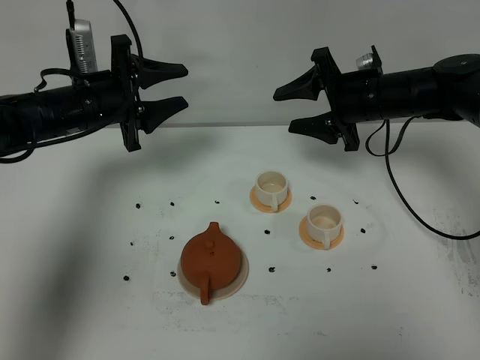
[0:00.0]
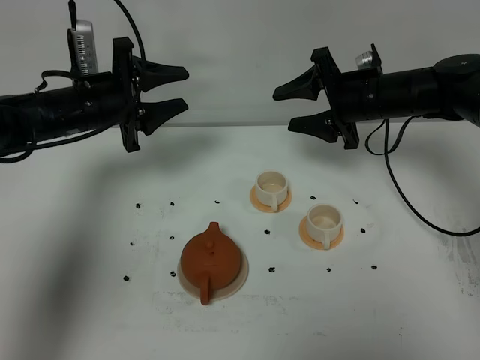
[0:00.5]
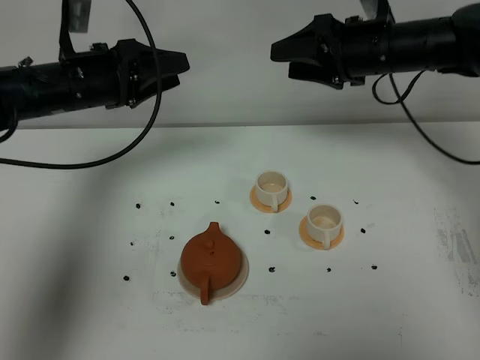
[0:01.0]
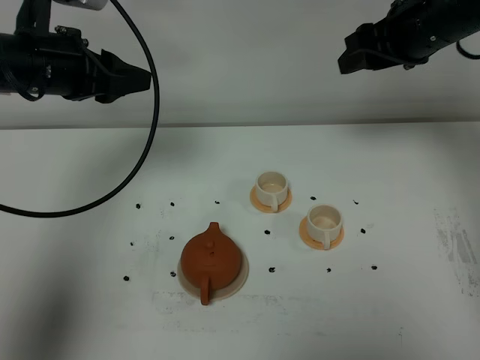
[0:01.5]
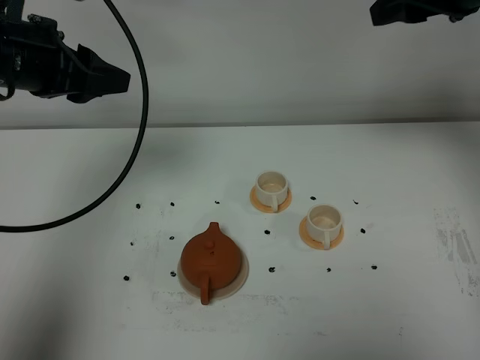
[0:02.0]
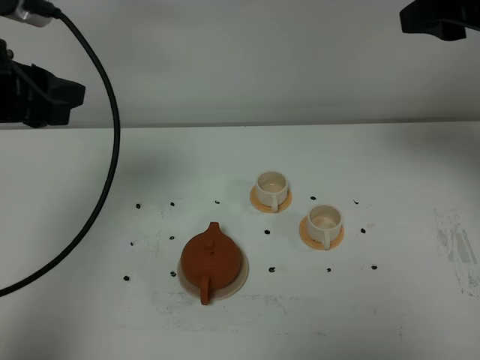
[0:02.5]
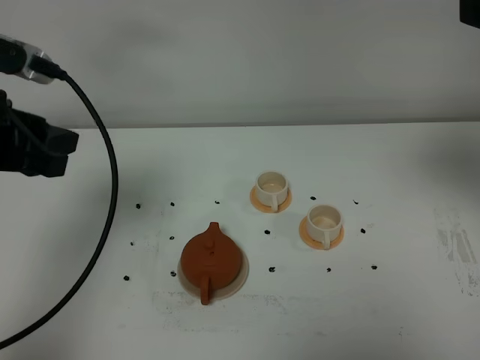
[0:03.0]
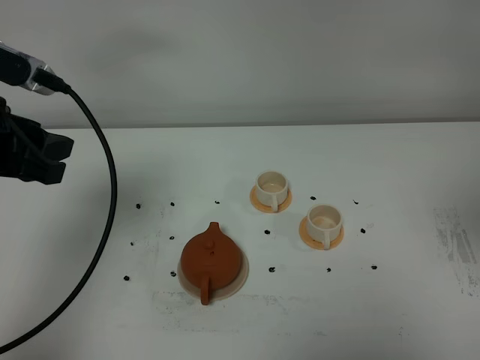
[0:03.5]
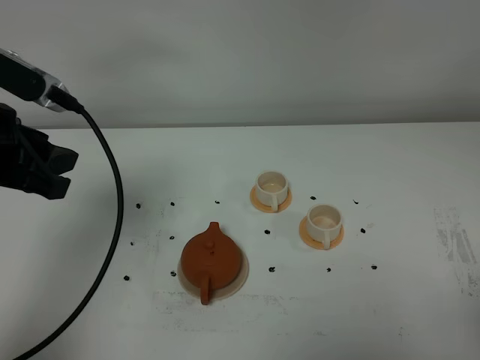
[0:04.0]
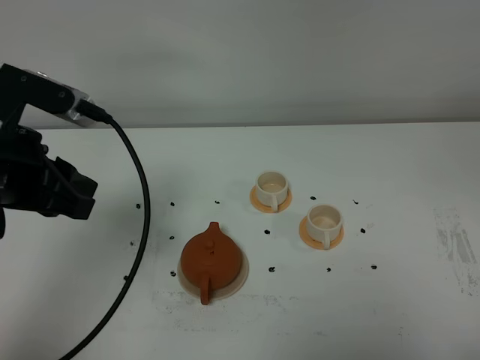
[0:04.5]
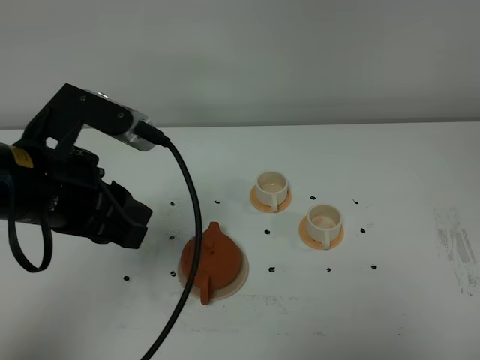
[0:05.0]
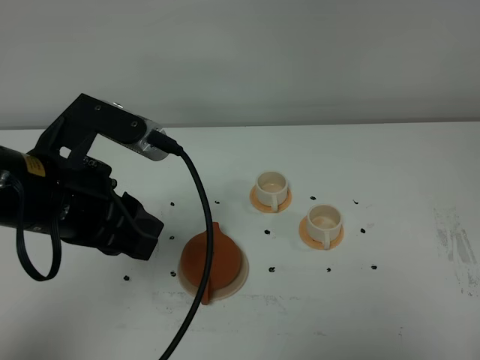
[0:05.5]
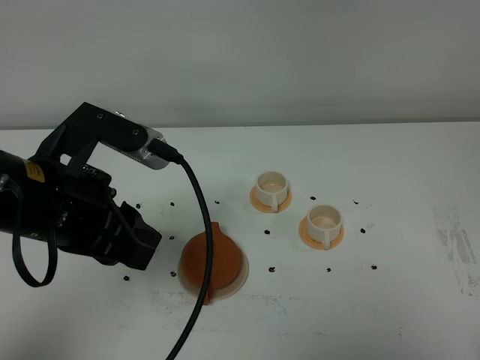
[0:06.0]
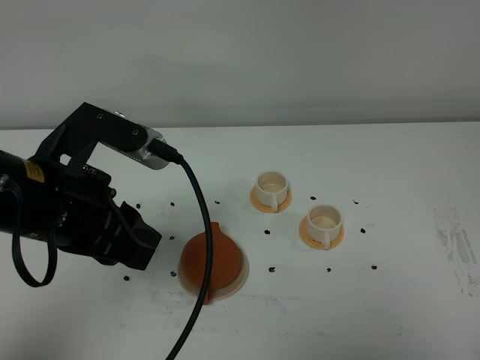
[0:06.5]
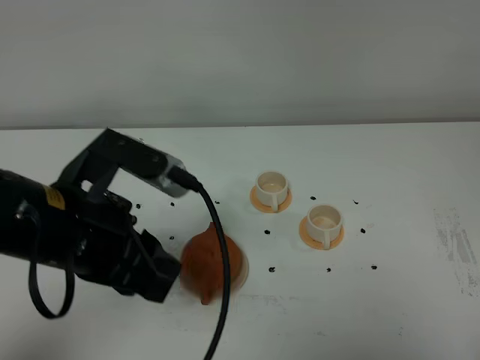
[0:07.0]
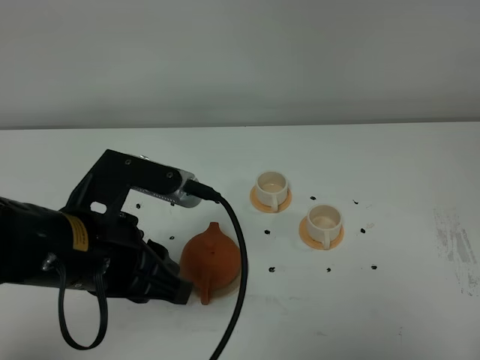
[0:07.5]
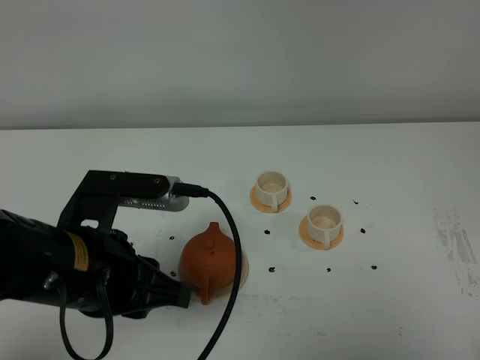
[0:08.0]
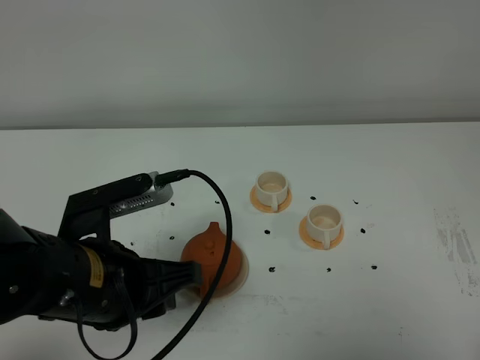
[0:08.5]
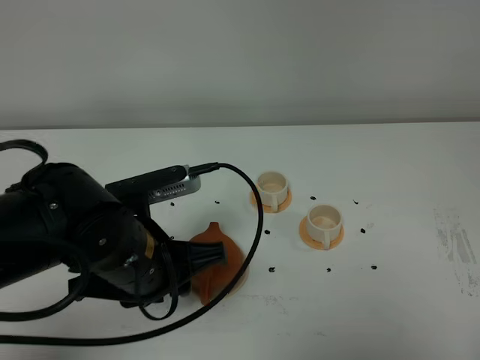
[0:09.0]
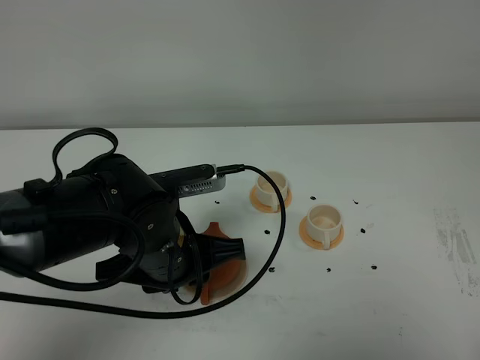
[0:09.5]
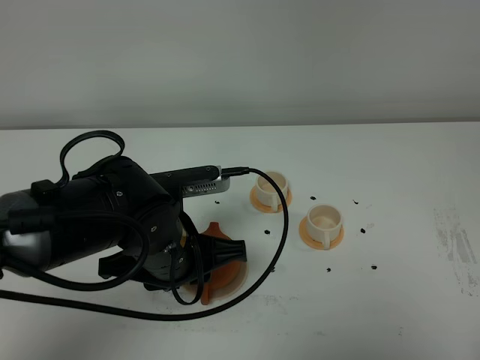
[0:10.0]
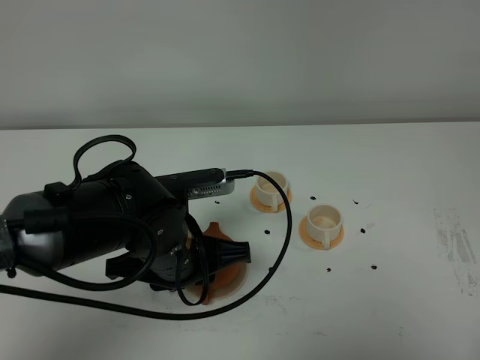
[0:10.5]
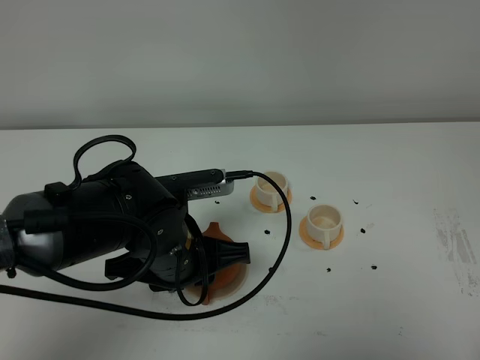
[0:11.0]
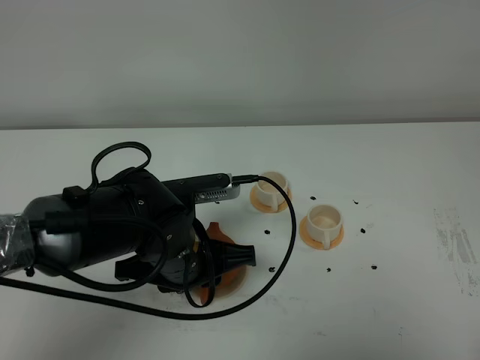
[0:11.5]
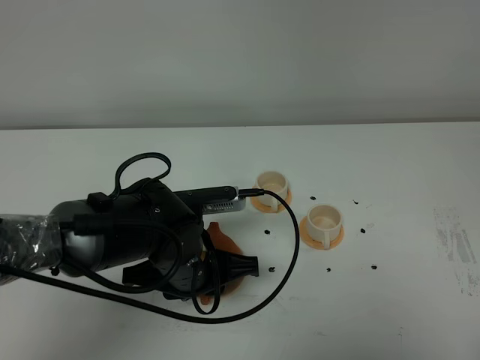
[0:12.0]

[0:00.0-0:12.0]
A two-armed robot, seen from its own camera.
Task of the whole recording: grasp the brown teapot and pour the tea into the two white teacups one by one, put the brown teapot back in its original place.
0:00.0 to 0:02.0: The grippers both shift upward and backward by roughly 20 cm.
0:02.0 to 0:04.0: The left gripper heads backward, covering roughly 10 cm. The right gripper shifts some 35 cm backward.
0:04.0 to 0:06.0: The left gripper goes roughly 10 cm to the right; the right gripper moves downward, roughly 10 cm.
0:06.0 to 0:08.0: The left gripper changes place by roughly 5 cm.
0:08.0 to 0:10.0: The left gripper heads forward, downward and to the right, covering some 10 cm.
0:10.0 to 0:12.0: The left gripper shifts by some 5 cm.

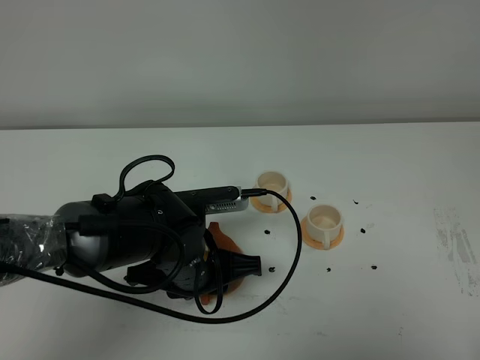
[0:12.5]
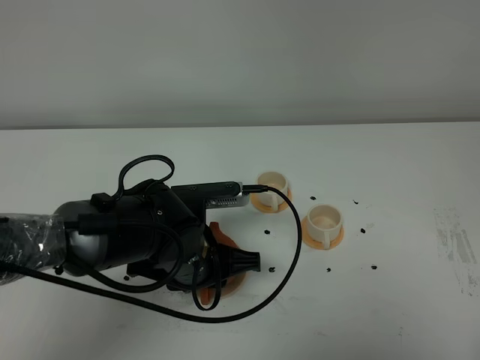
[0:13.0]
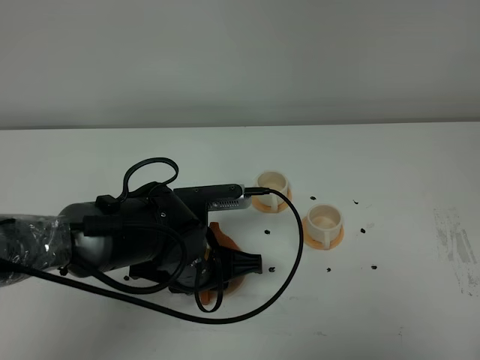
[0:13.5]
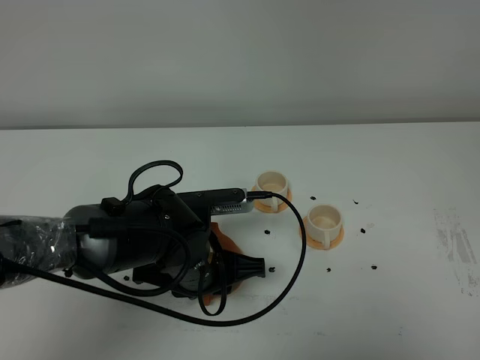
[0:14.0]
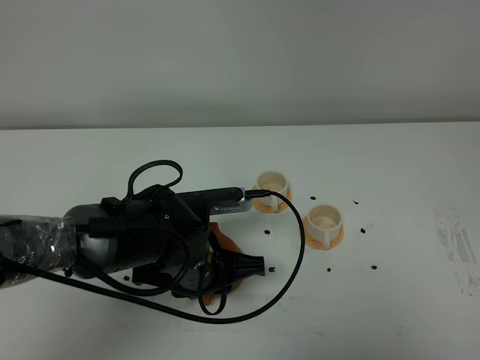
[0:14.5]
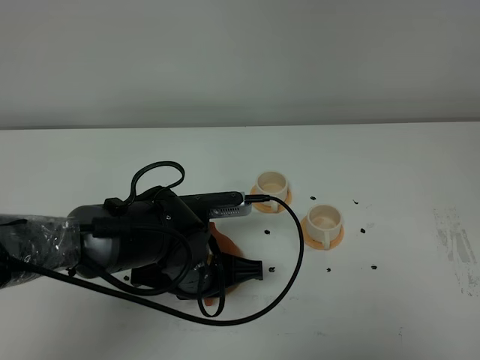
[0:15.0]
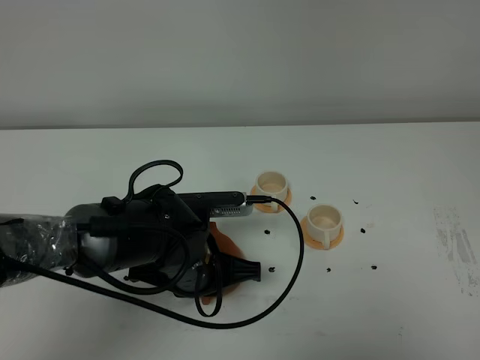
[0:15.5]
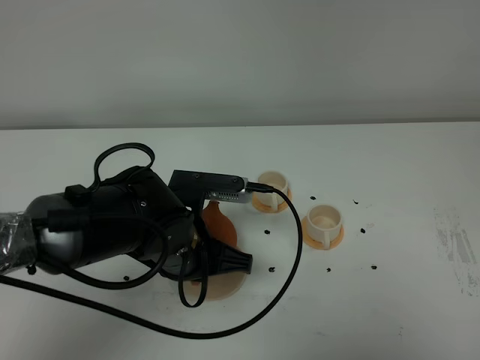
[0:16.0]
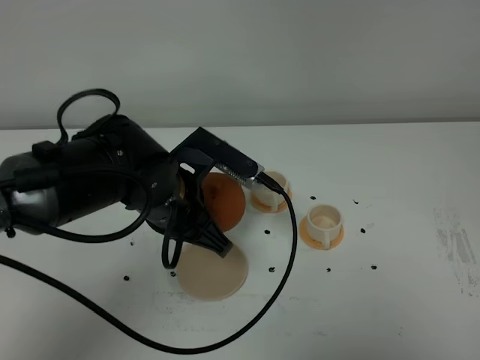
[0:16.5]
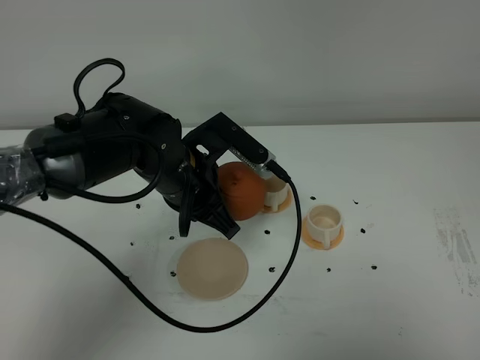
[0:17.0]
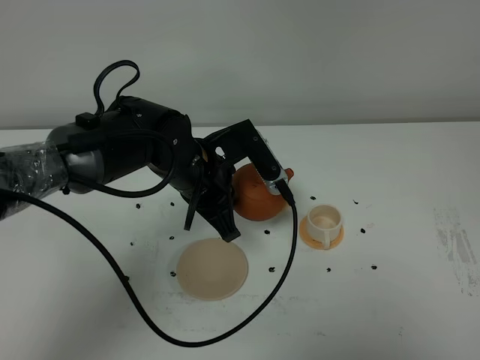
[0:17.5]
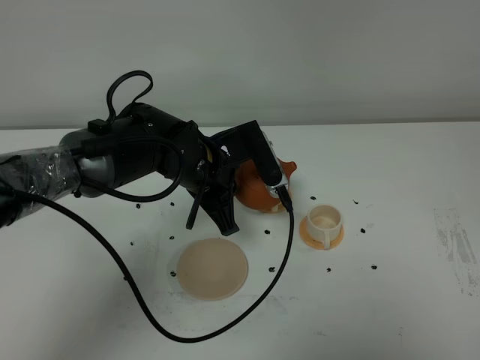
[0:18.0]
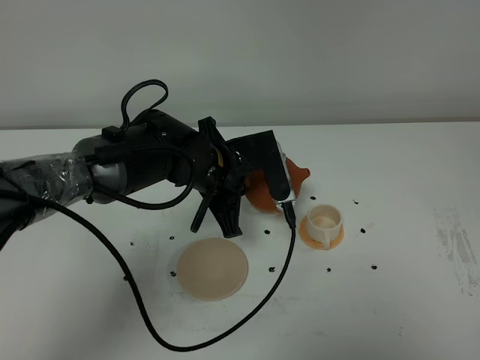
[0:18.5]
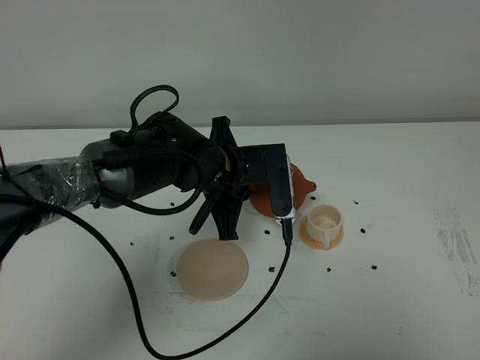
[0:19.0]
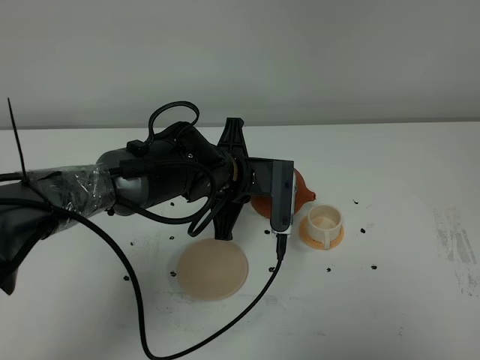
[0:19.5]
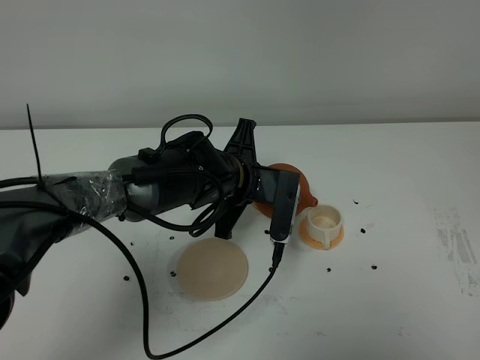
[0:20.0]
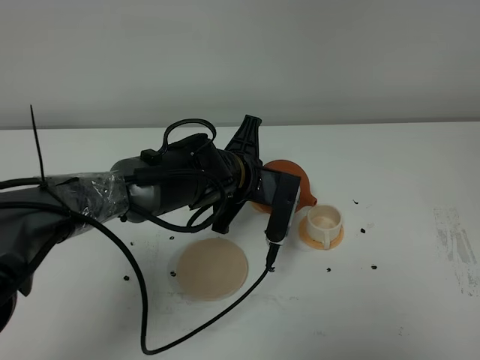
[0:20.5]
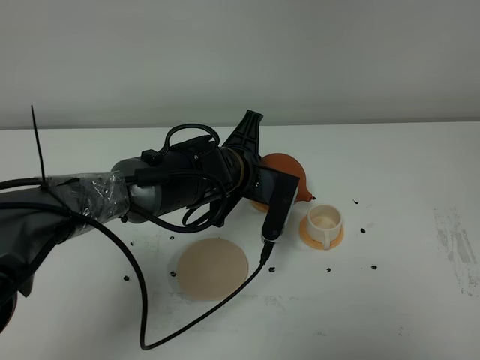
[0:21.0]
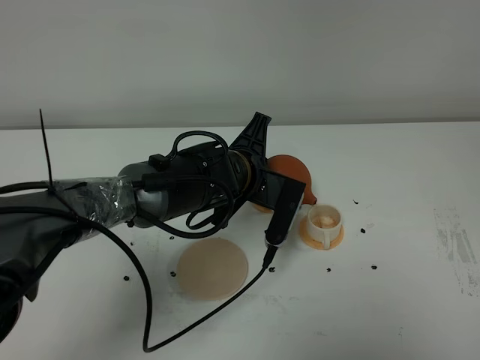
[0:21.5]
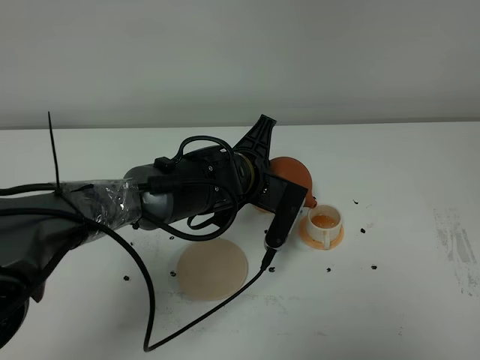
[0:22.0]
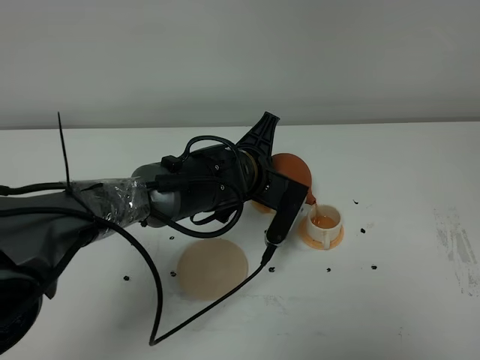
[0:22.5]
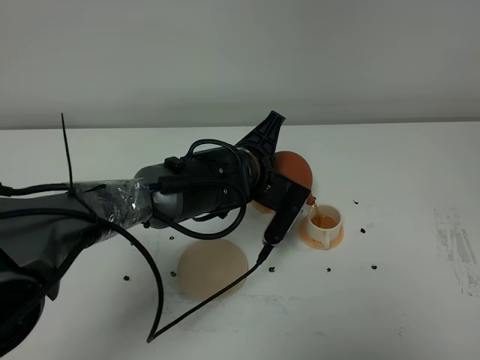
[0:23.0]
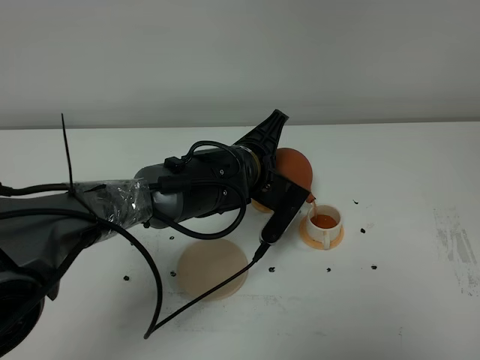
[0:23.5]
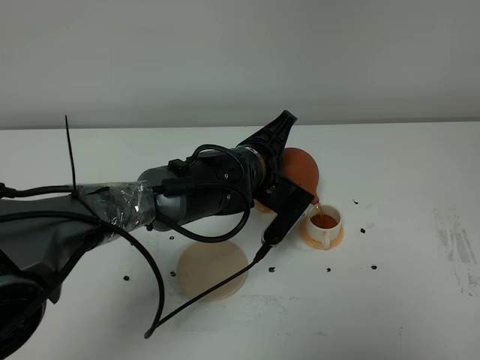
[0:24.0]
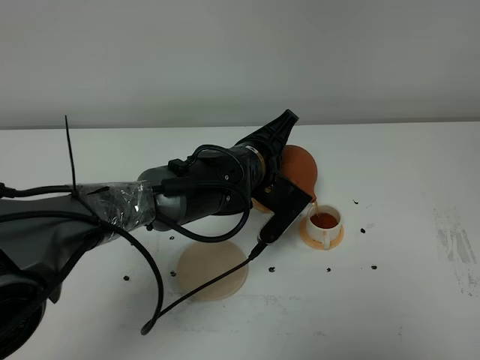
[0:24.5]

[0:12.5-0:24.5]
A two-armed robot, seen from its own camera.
Task of the whole recording: grasp the brown teapot and pour the tea into the two white teacups one by one, put the brown teapot back in its original place.
Step, 0:12.5 to 0:15.5: Pick up the teapot with the left gripper.
0:12.5 to 0:14.5: The right gripper closes.
0:14.5 to 0:16.5: The left gripper heads upward, covering approximately 10 cm, and closes up.
0:16.5 to 0:18.5: The left gripper travels forward by some 5 cm.
0:20.5 to 0:22.5: The grippers make only small movements.
0:22.5 to 0:24.5: The grippers stay close to where they were, moving slightly.

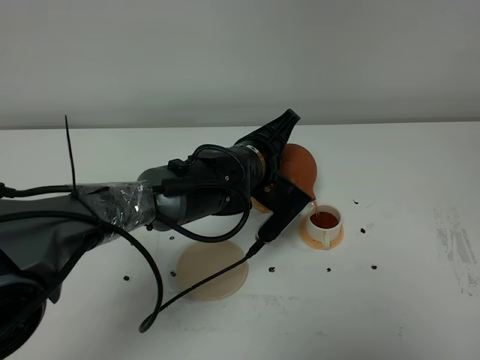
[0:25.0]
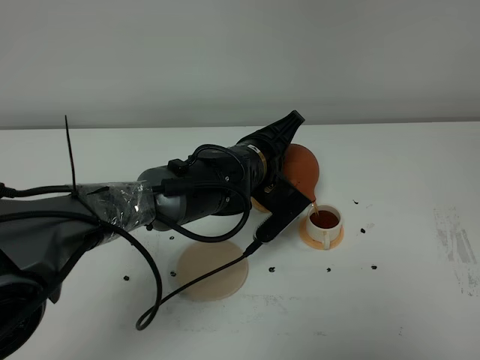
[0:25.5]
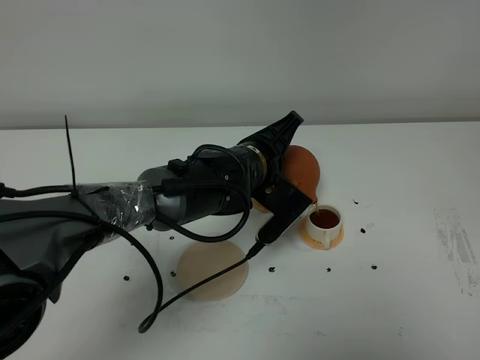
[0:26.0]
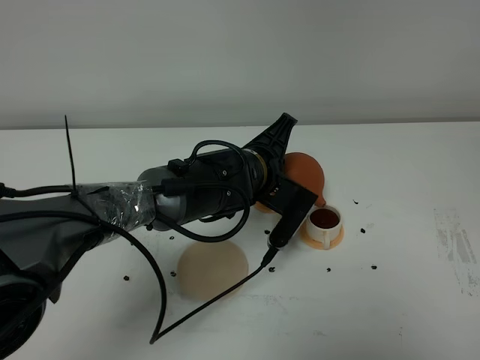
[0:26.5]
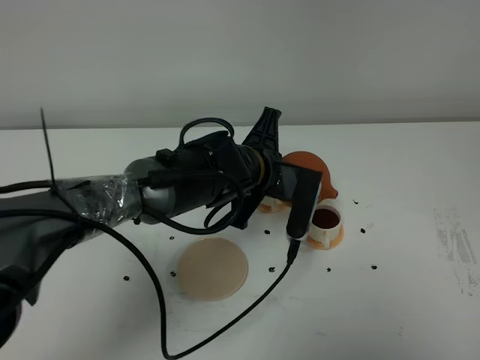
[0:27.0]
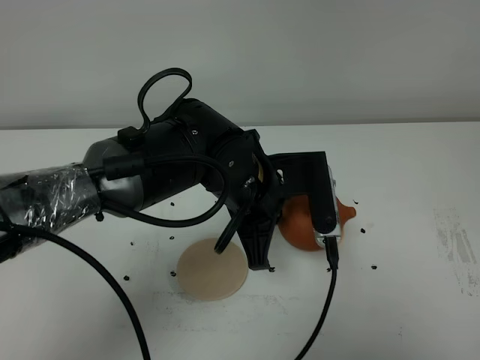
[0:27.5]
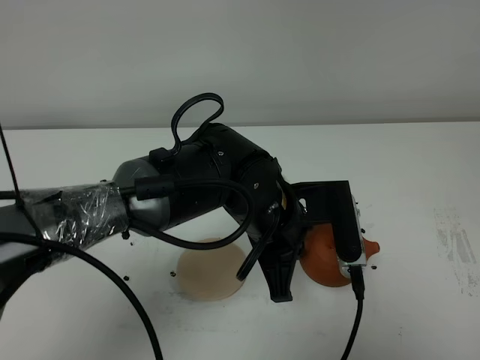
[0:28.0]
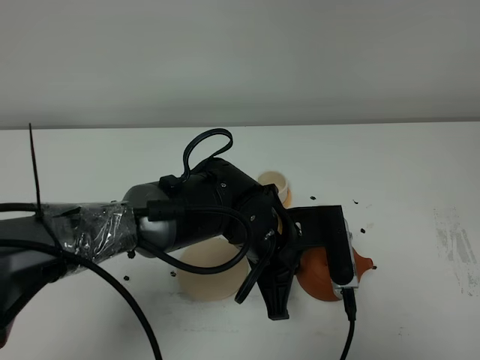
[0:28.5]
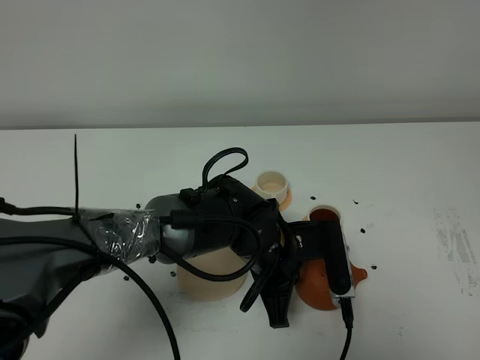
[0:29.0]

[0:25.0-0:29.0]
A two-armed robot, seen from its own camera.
Task of the whole recording: grasp the brown teapot and pour the tea into the two white teacups one by one, put the brown teapot back in its original place.
Step, 0:25.0 to 0:27.0: Pour tea into the teacup with the left gripper.
0:27.0 to 0:29.0: The left gripper heads backward and downward, covering roughly 10 cm.
